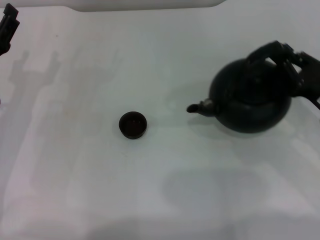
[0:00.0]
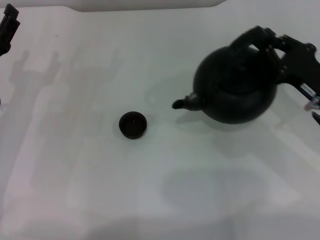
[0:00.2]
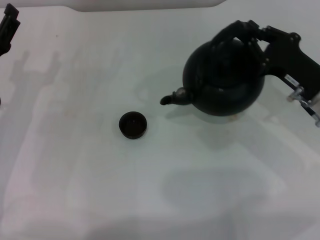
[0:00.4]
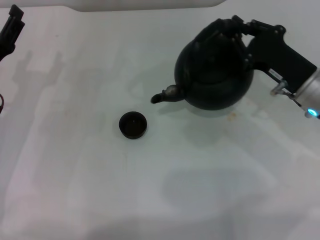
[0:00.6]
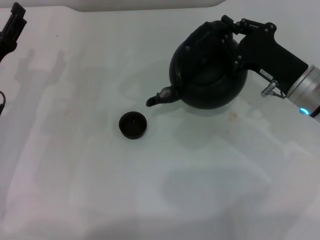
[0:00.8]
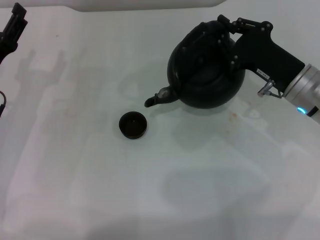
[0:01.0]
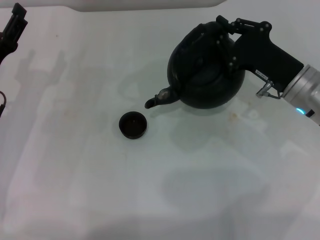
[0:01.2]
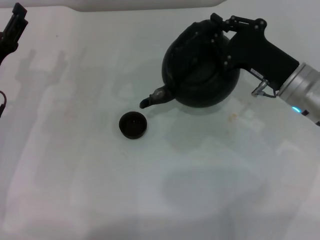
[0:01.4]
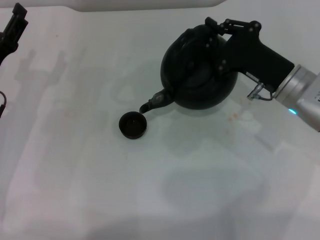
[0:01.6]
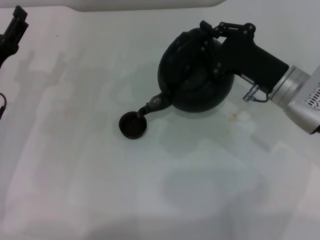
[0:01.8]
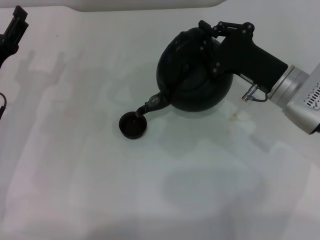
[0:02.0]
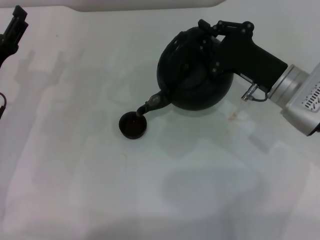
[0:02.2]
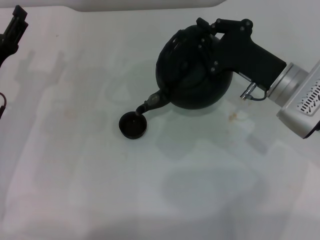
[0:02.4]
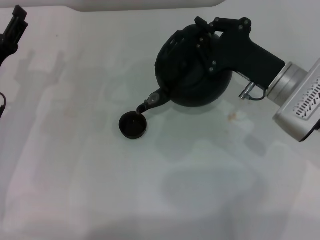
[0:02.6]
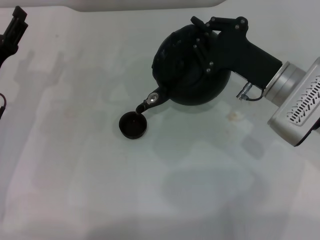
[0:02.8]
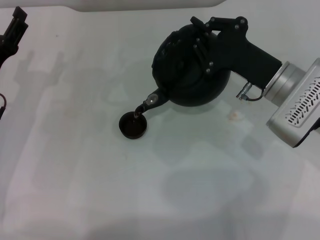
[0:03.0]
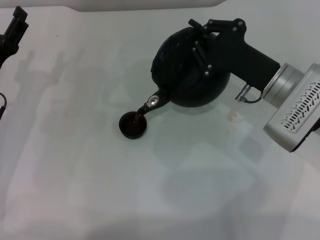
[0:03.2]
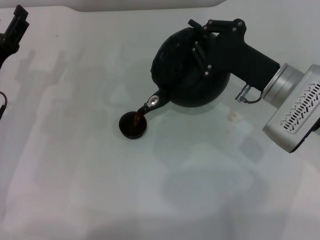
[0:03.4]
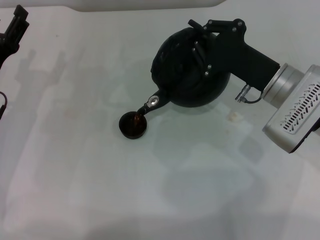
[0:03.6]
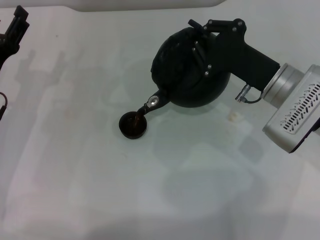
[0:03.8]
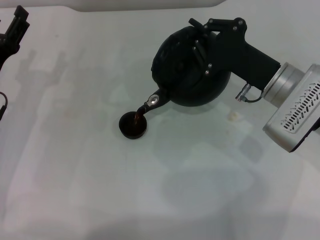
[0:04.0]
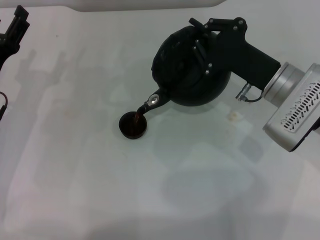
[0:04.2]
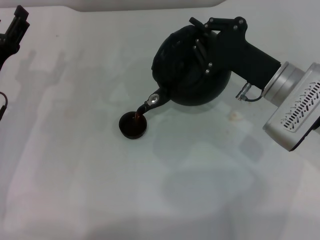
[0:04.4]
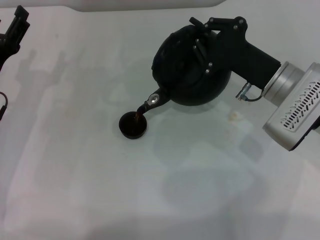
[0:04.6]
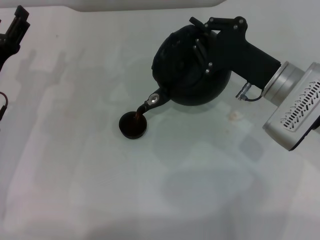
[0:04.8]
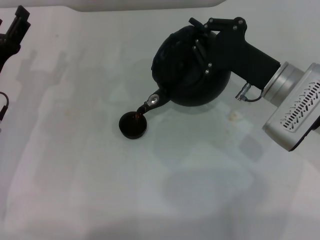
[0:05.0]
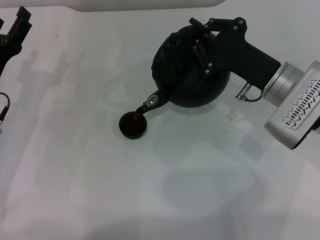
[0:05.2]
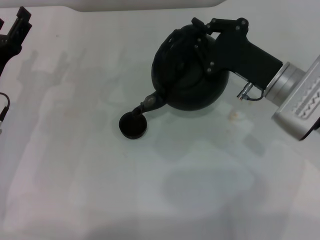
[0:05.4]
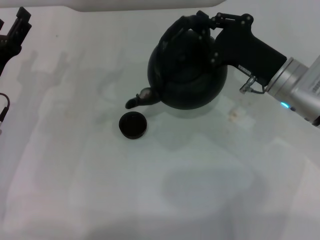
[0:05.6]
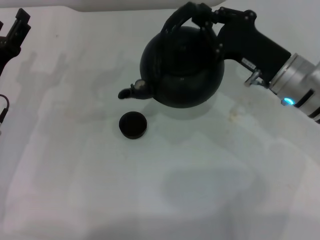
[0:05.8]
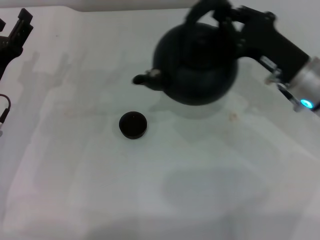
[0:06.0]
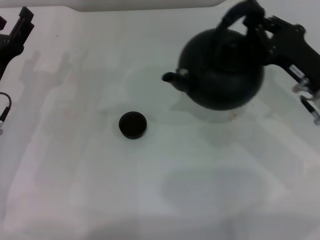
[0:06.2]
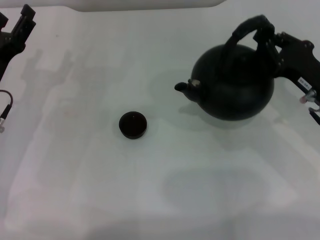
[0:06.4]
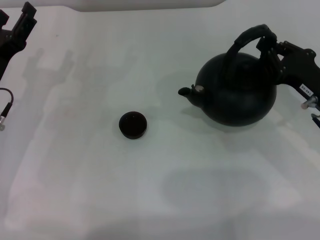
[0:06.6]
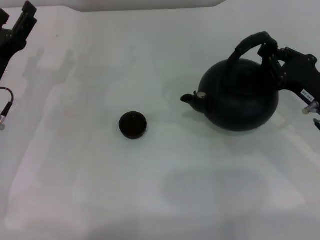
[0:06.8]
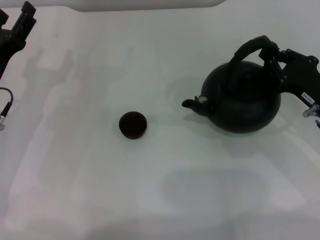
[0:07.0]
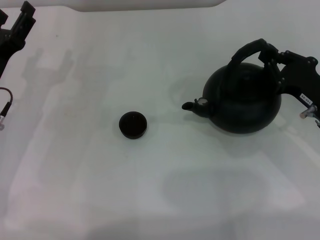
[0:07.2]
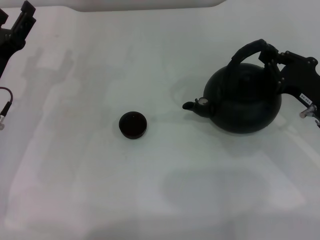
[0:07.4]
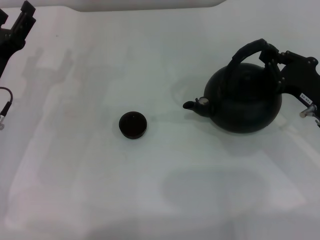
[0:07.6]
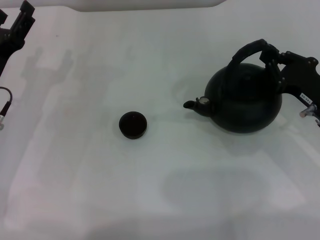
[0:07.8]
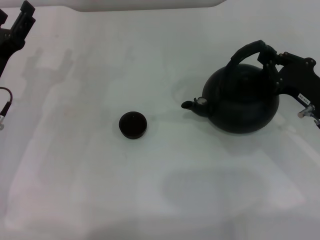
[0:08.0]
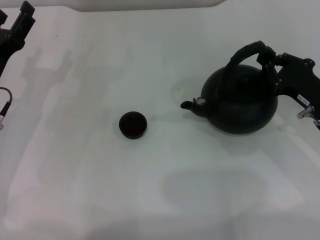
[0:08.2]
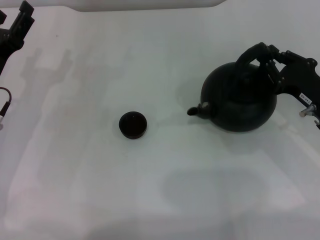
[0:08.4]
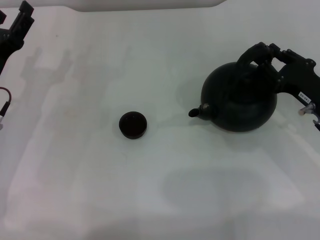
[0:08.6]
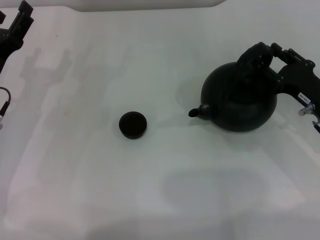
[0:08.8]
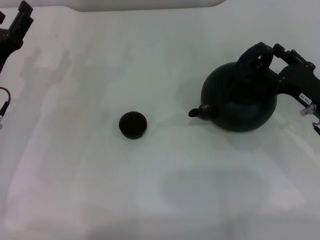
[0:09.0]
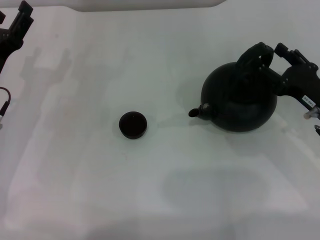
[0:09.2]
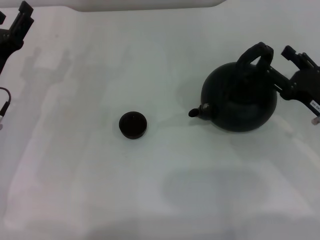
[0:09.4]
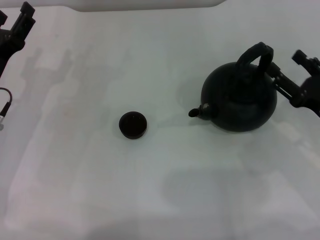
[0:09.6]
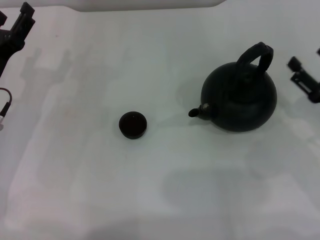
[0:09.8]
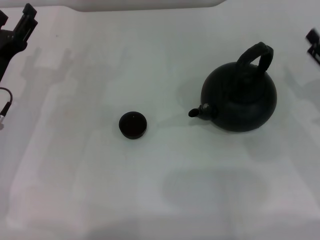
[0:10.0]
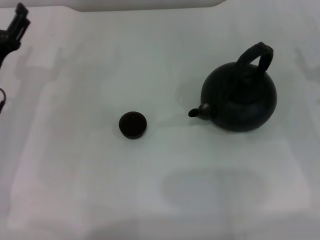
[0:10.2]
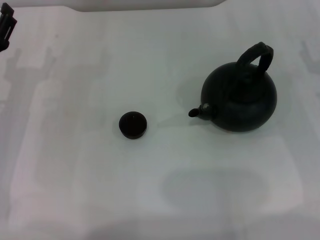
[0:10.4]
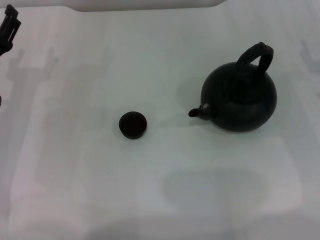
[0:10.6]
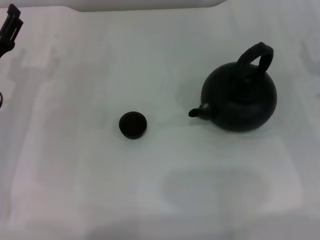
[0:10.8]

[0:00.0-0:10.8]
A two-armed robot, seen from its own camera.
Task of the whole recording: Grasp the handle of the teapot with one hand and pour tea into the teacup.
Step, 0:00.4 to 0:05.8: Pour tea into the teacup with the right gripper.
Step, 0:06.0 to 0:09.4: Put down the teapot with the right gripper.
0:00.0 to 0:01.6: The right gripper is displaced to the left and forward by some 10 cm.
0:01.6 to 0:03.0: The grippers stay close to where they were, moving slightly.
0:03.0 to 0:04.6: The two grippers keep their place.
0:04.6 to 0:06.2: The right gripper shifts roughly 5 cm to the right.
0:06.2 to 0:07.8: The grippers stay close to where they were, moving slightly.
0:07.8 to 0:09.2: The right gripper opens its fingers.
0:09.2 to 0:10.8: The right gripper moves approximately 5 cm.

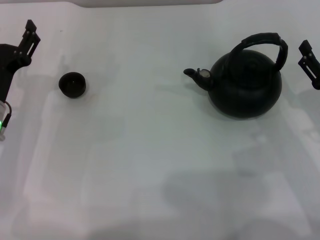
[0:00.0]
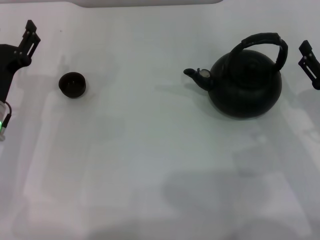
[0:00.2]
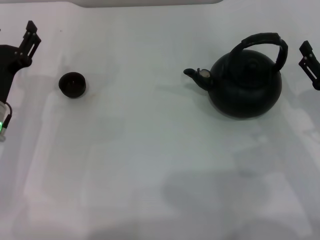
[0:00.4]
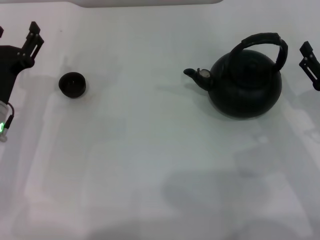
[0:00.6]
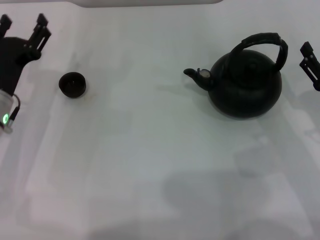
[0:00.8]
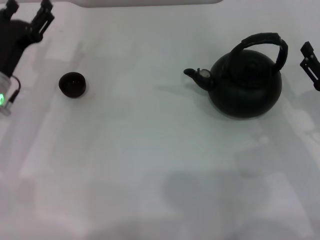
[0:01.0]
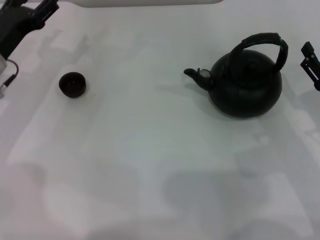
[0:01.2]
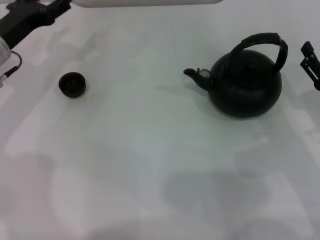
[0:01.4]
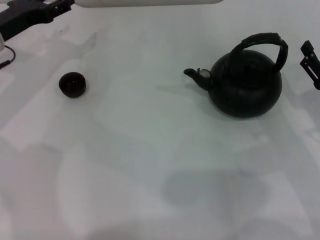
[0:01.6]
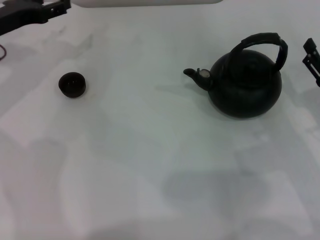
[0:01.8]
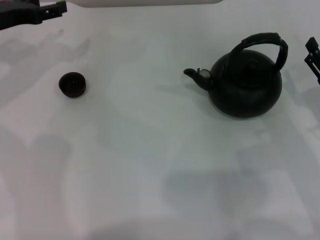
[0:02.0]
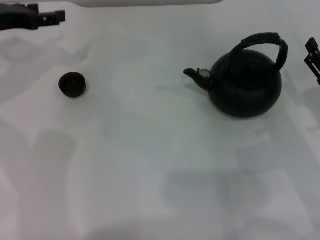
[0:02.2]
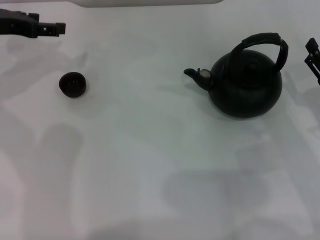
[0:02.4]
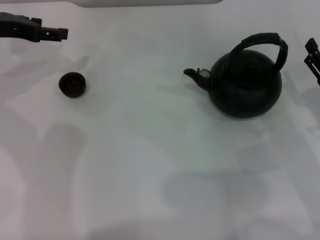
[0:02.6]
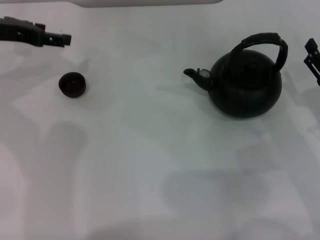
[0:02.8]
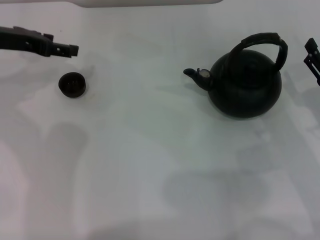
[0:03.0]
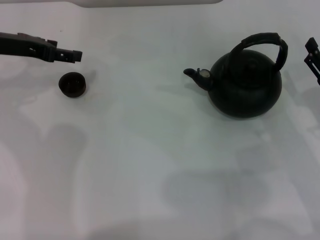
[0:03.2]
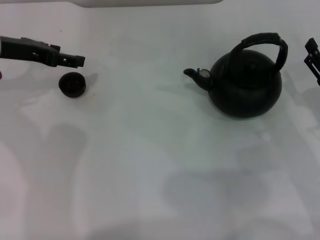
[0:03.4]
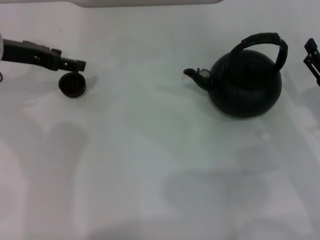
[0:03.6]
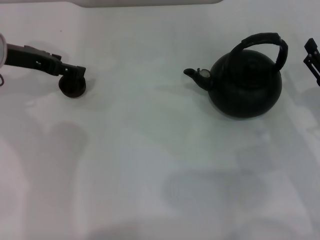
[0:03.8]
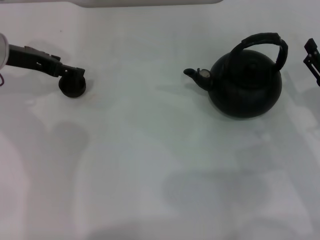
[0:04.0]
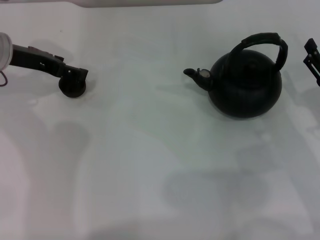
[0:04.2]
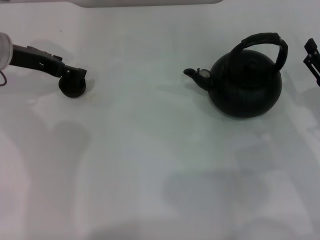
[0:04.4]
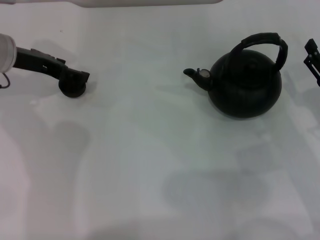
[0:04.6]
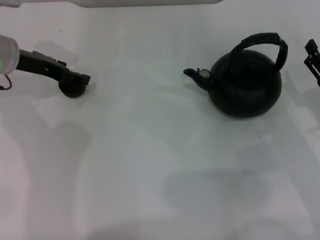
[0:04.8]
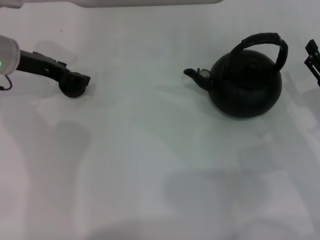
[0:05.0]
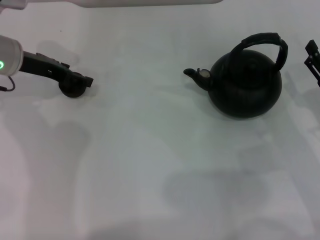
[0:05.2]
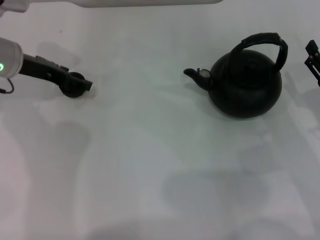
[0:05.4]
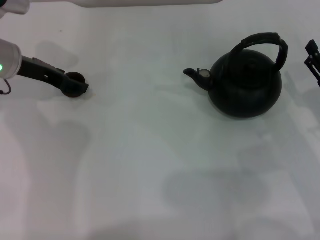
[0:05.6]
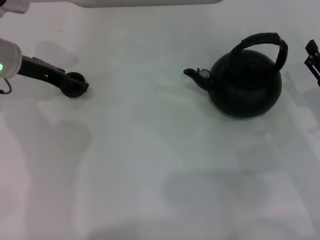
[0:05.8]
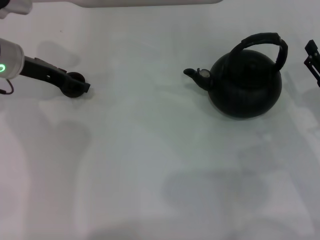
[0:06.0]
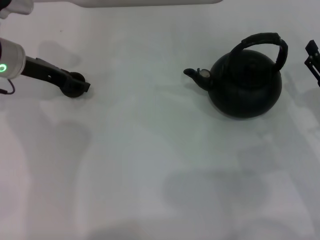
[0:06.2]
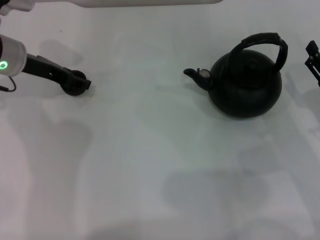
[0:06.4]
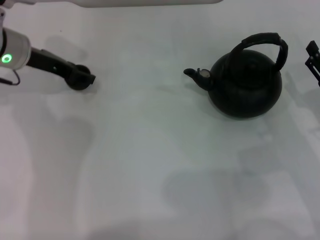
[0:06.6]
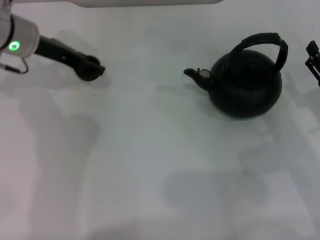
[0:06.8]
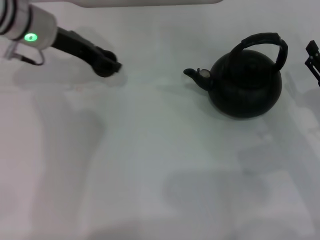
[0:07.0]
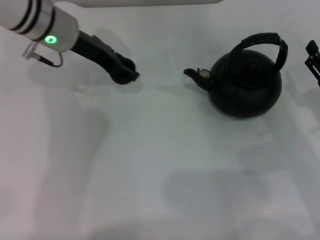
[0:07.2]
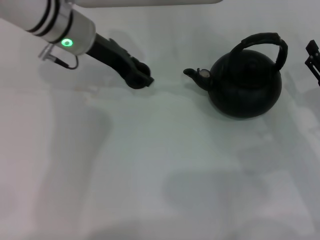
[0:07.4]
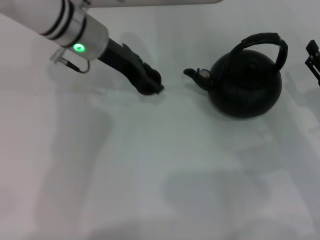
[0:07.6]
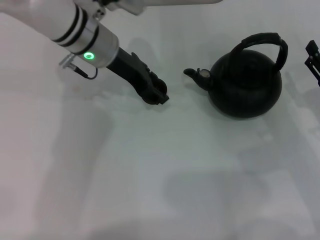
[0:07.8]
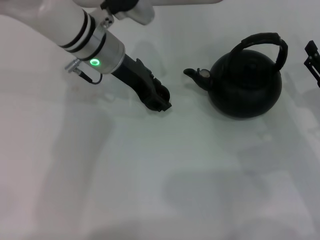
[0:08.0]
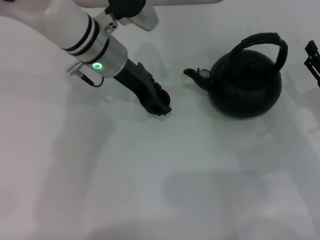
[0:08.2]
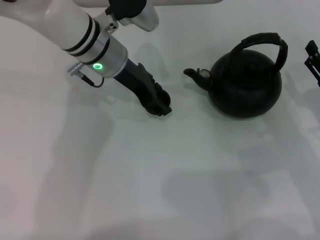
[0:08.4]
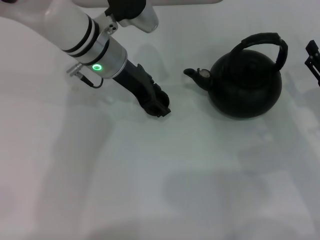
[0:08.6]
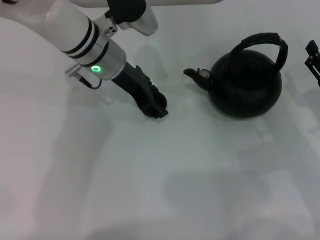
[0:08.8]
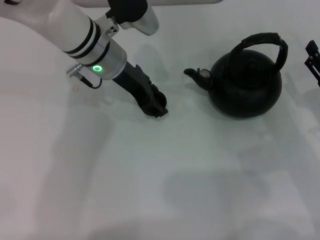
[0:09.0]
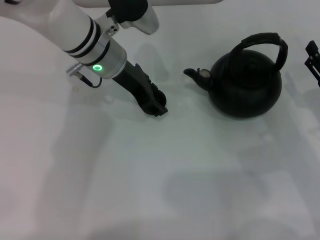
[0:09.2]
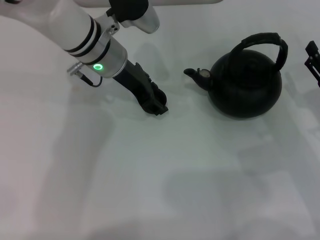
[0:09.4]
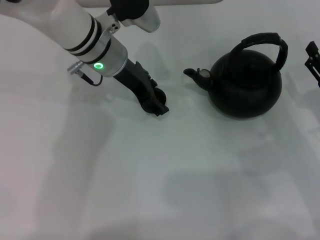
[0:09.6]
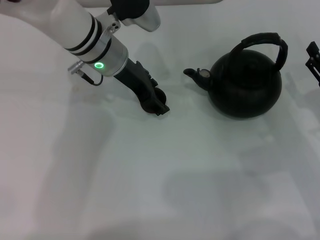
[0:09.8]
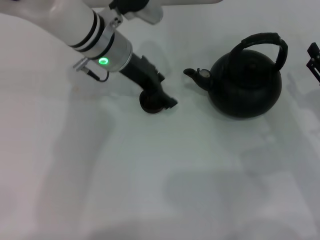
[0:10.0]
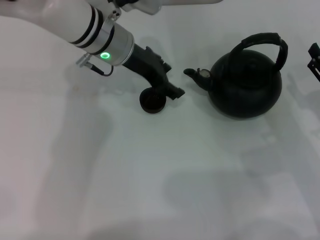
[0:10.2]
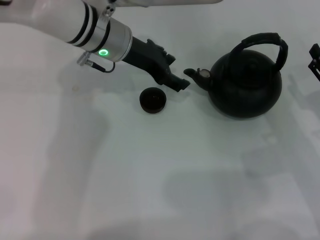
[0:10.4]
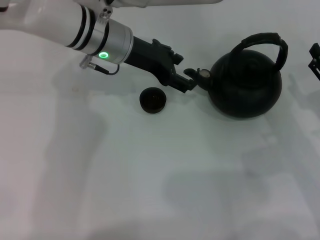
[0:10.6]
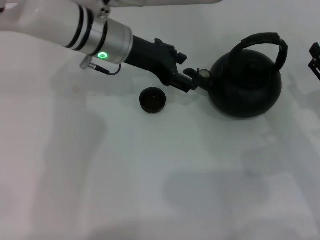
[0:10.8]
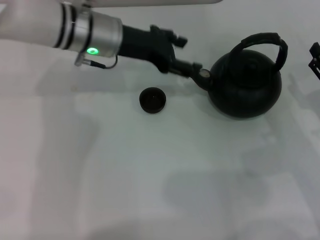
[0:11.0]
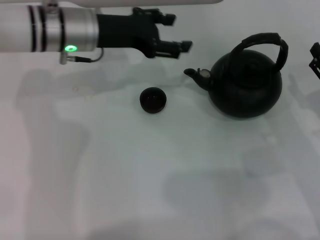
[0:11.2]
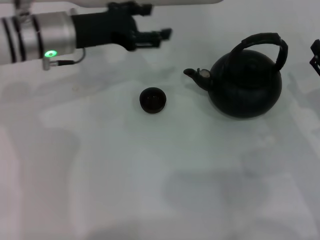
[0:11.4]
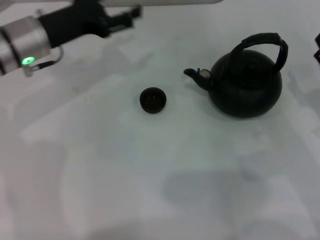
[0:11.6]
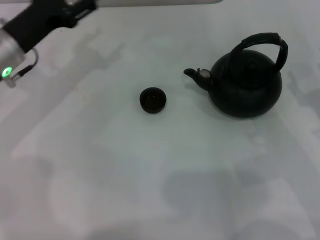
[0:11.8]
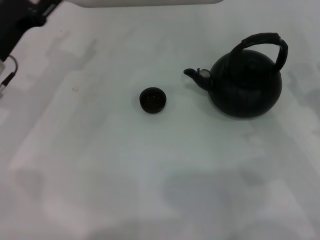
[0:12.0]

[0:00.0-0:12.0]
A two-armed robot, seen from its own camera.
Task of the whole recording: Grasp the handle of the teapot with one hand and pour tea into the teacup.
Step, 0:00.0 to 0:06.8: Pick up the teacup with the left gripper.
Step, 0:07.0 to 0:10.4: Place the teacup in the center of view with the left gripper.
0:00.0 to 0:01.6: The left gripper is displaced forward and upward by approximately 10 cm.
0:03.0 to 0:06.0: The grippers make only small movements.
0:06.0 to 0:07.6: The left gripper travels to the right by about 15 cm, and closes.
0:07.6 to 0:09.0: The grippers stay close to where they were, moving slightly.
0:09.0 to 0:10.4: The left gripper opens.
0:10.4 to 0:12.0: The left gripper moves to the left and backward, some 20 cm.
